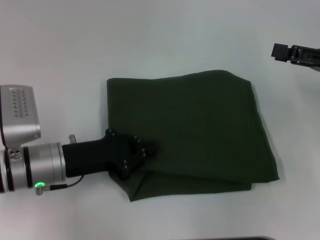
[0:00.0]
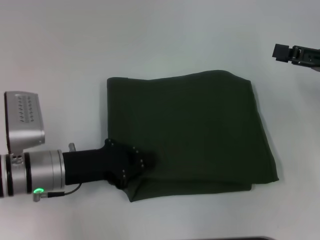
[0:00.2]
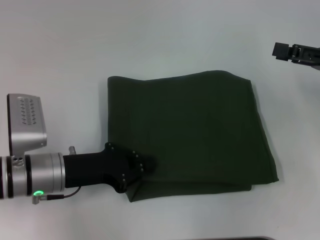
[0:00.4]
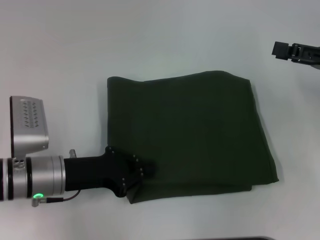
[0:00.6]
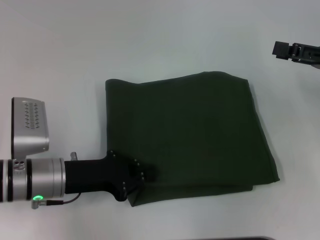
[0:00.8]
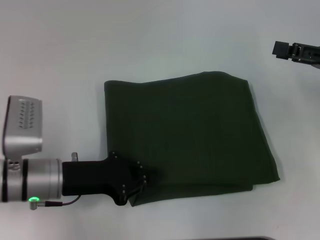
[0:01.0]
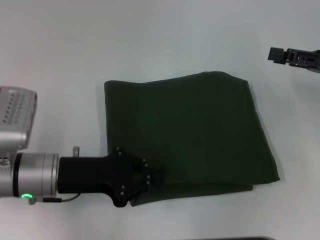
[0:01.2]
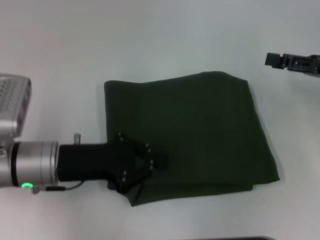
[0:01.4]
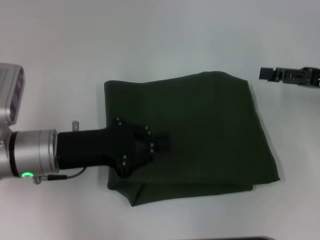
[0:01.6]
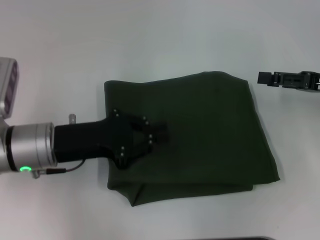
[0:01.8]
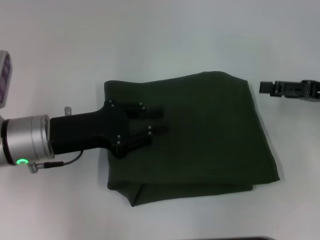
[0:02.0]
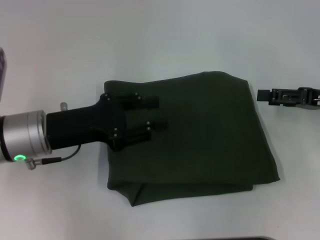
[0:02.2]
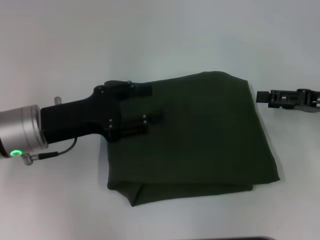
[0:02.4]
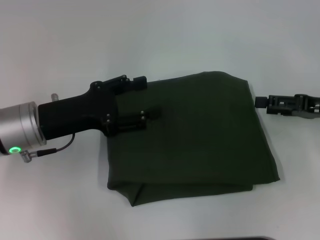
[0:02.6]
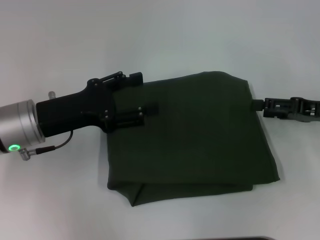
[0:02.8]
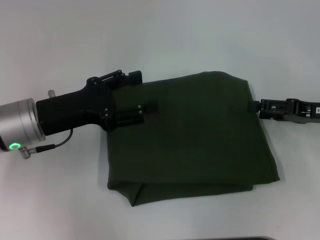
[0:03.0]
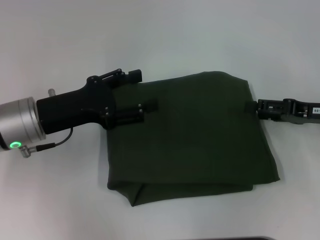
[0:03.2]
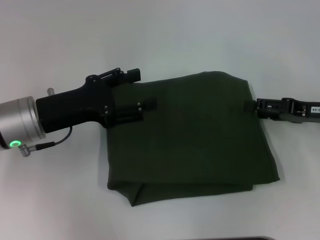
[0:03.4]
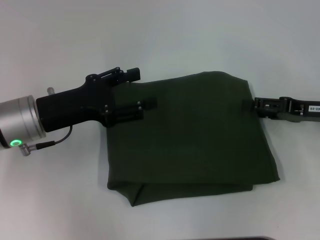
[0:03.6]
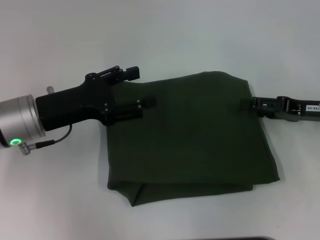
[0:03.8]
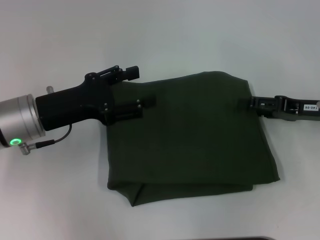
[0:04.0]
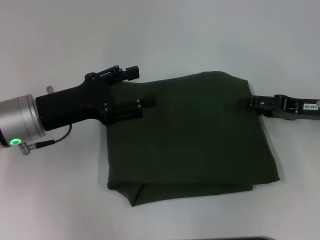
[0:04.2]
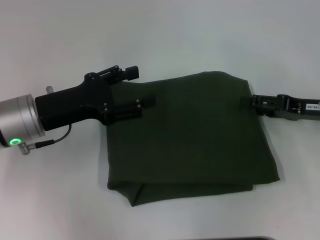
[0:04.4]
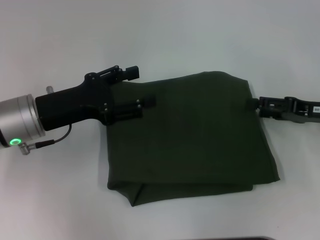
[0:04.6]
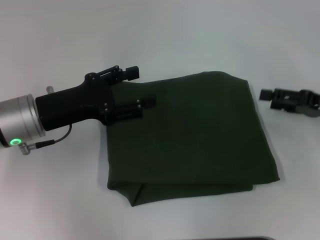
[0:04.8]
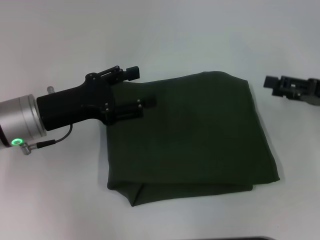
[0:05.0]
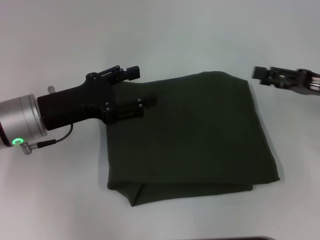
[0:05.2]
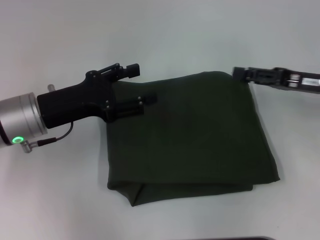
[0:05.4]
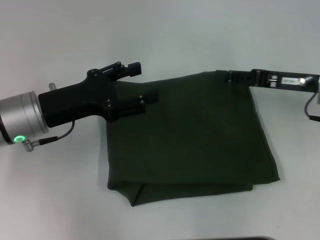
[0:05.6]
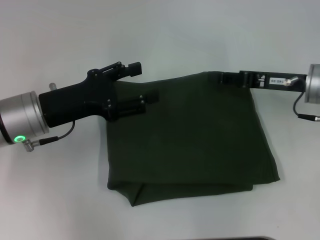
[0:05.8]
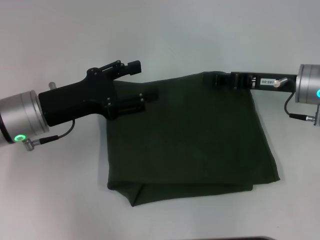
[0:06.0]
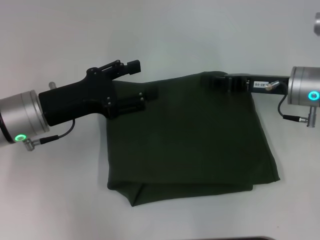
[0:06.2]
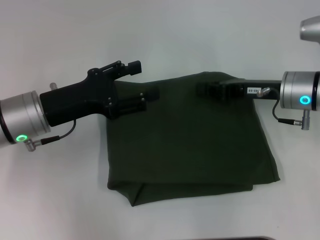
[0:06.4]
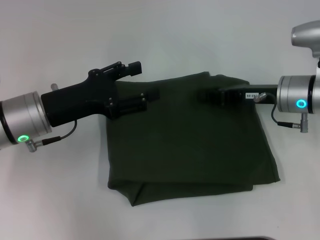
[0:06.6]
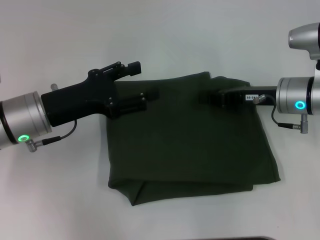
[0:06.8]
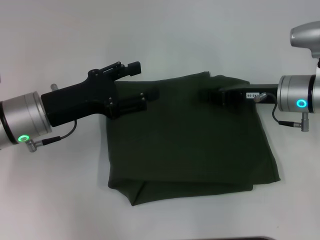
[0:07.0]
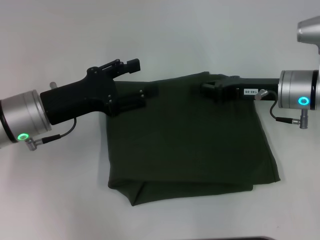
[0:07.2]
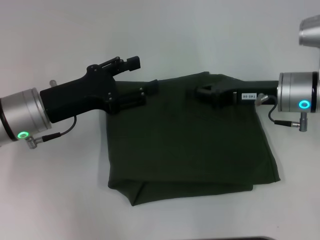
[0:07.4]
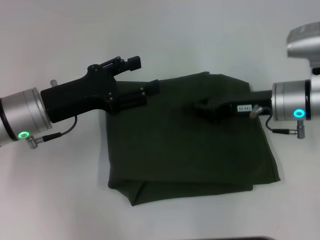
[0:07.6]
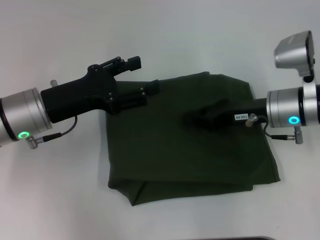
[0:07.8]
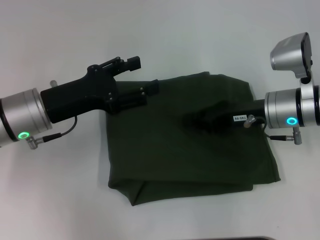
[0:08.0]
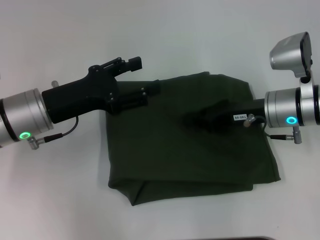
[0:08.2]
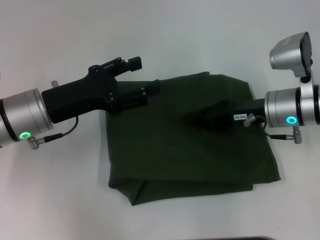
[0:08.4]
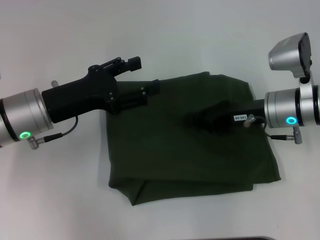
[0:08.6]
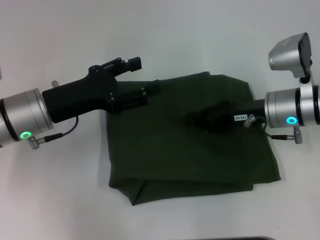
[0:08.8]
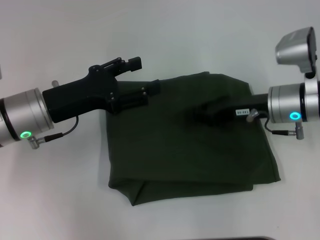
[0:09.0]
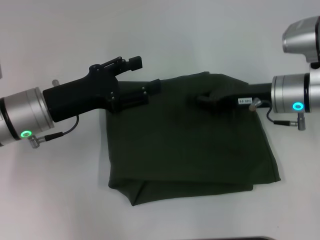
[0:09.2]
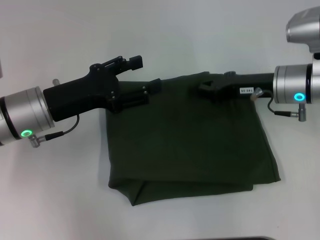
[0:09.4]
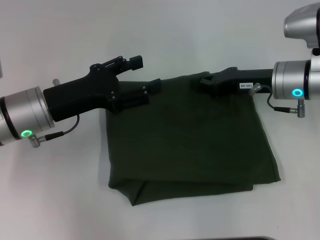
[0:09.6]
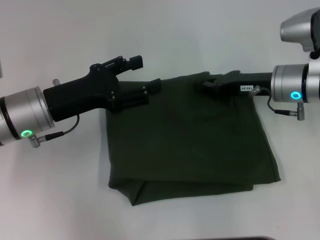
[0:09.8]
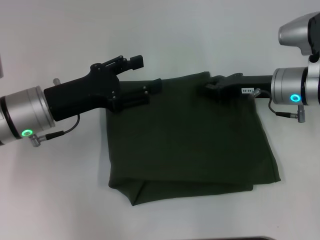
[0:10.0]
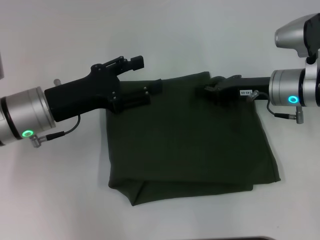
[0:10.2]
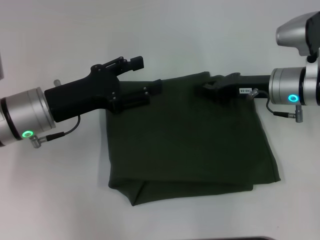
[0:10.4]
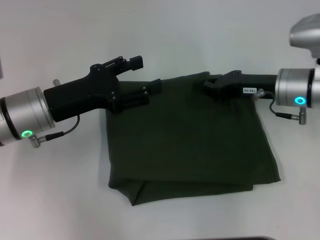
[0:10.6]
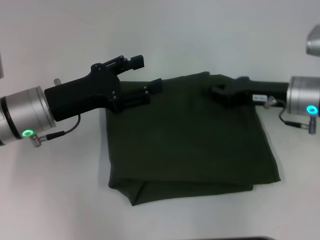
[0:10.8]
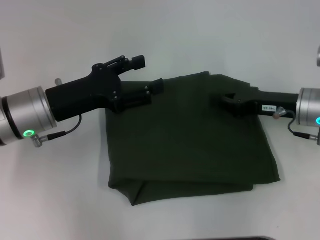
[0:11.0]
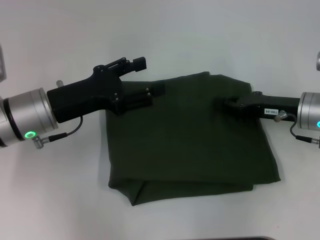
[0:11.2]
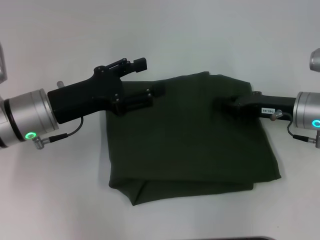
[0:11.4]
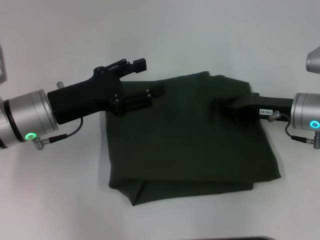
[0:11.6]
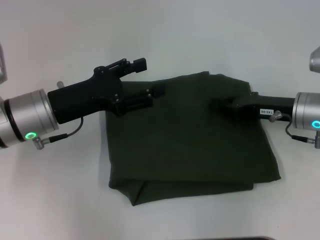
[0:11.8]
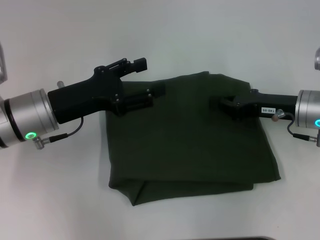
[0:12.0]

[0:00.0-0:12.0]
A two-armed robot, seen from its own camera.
0:00.0 to 0:01.6: The grippers stay close to where they were, moving slightly.
0:01.6 to 0:03.0: The left gripper opens up.
0:03.0 to 0:04.4: The grippers move only a little.
0:04.4 to 0:06.0: The right gripper heads to the left, covering some 5 cm, and closes up.
0:06.0 to 0:07.6: The grippers stay close to where they were, moving slightly.
0:07.6 to 0:10.4: The grippers stay close to where they were, moving slightly.
0:10.4 to 0:12.0: The right gripper shifts by about 5 cm.

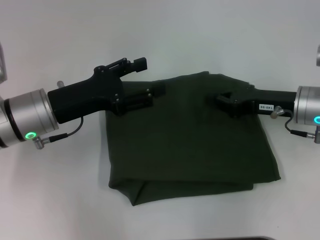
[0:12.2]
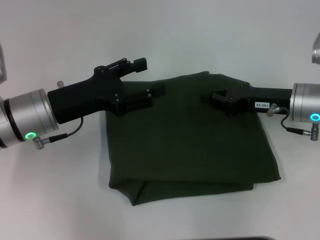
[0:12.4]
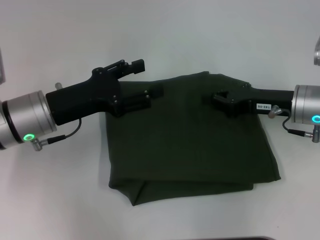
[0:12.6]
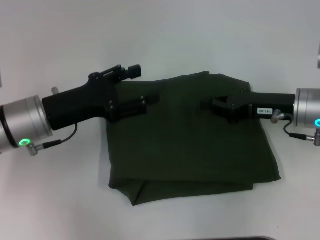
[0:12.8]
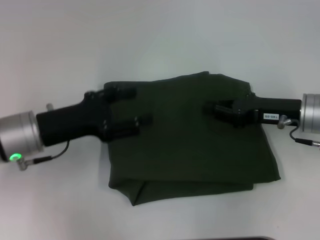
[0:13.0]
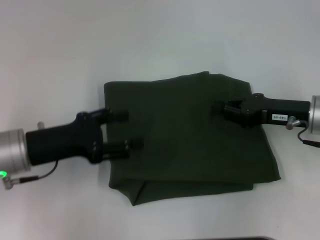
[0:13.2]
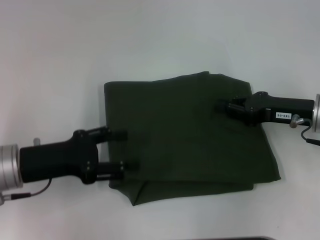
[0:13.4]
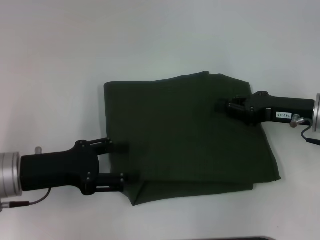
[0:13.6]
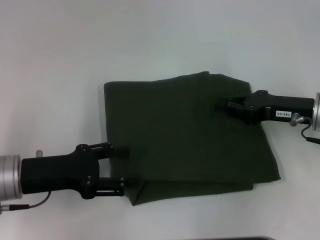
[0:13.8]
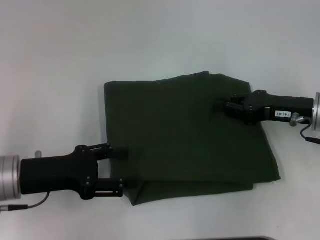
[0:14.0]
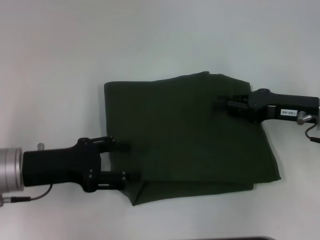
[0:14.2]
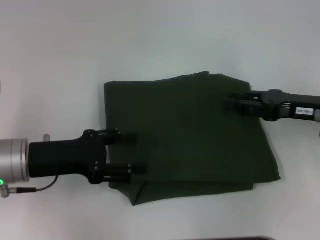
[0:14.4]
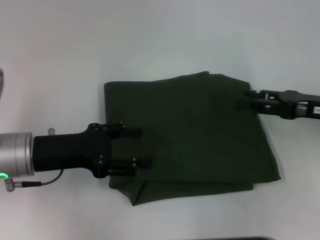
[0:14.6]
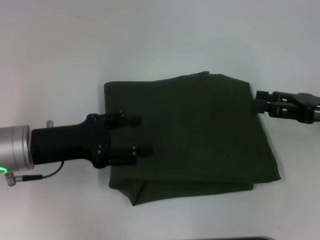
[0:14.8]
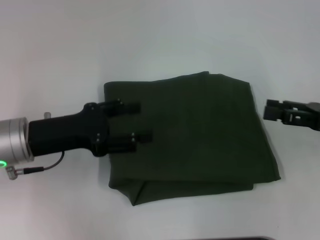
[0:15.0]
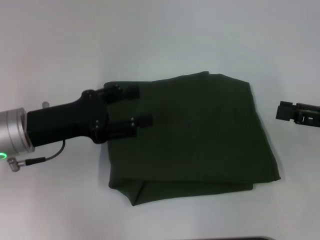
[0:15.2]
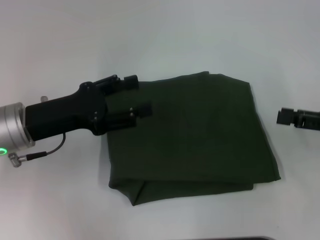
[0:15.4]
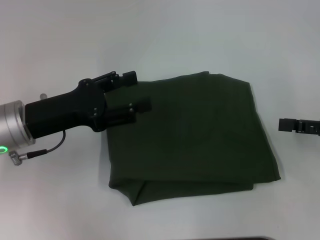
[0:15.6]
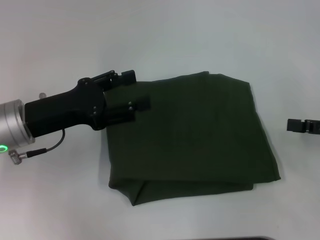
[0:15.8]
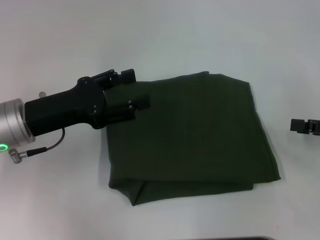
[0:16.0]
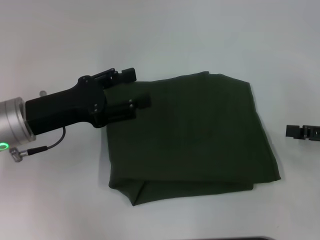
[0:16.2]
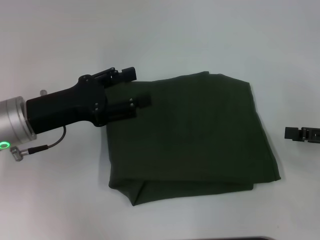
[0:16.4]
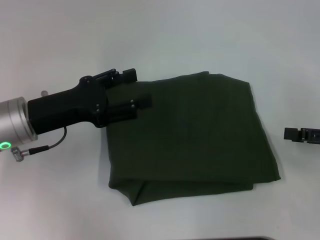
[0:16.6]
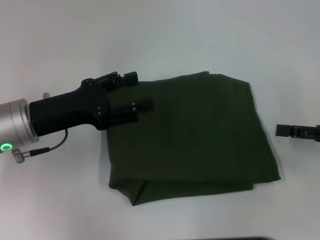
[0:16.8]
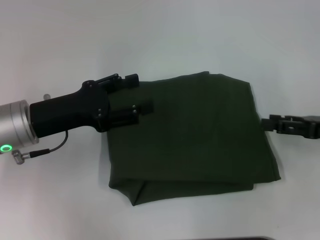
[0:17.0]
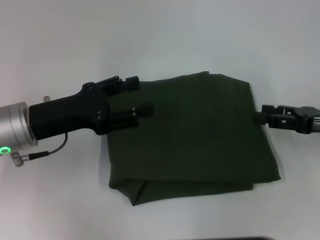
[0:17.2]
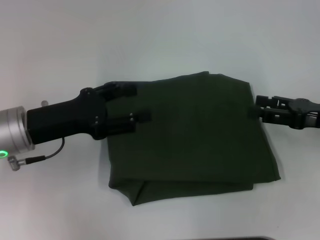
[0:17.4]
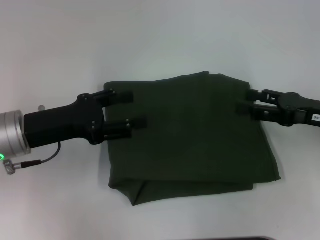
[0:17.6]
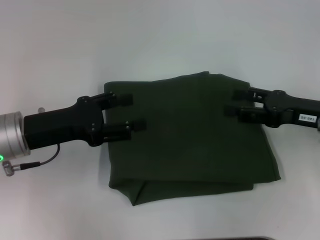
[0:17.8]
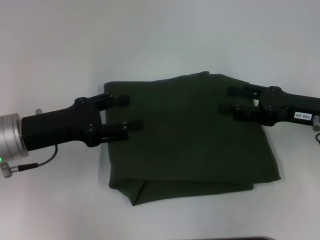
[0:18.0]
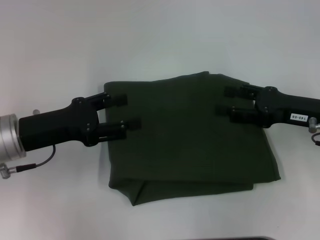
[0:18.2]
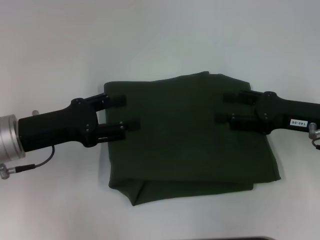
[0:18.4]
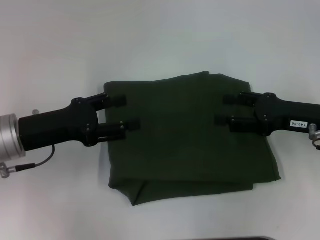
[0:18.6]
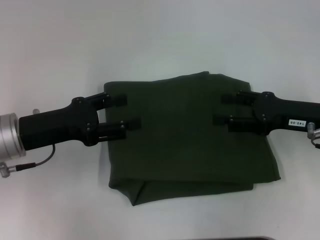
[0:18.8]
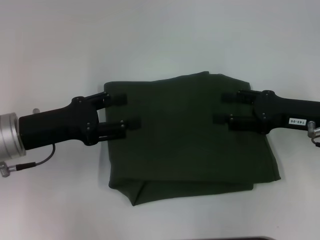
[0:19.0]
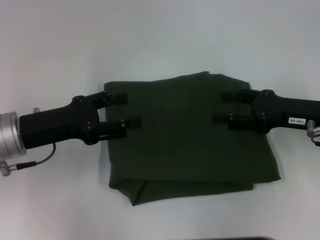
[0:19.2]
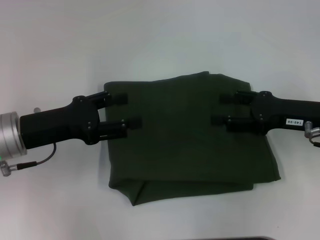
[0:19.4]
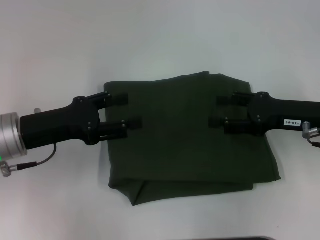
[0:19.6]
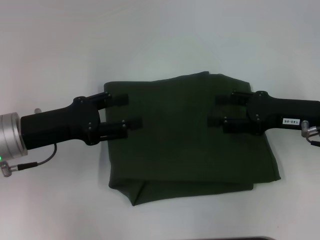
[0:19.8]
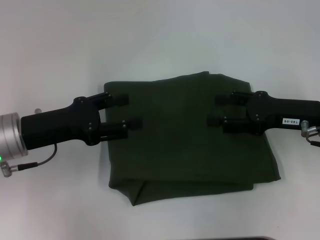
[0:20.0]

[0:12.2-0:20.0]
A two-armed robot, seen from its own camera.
0:12.2 to 0:13.8: The left gripper heads backward, covering roughly 5 cm.
0:13.8 to 0:15.4: The right gripper goes approximately 10 cm to the right and backward, and opens; the left gripper shifts by approximately 5 cm.
0:15.4 to 0:16.8: The grippers stay close to where they were, moving slightly.
0:16.8 to 0:18.4: The right gripper shifts approximately 10 cm to the left.
0:18.4 to 0:20.0: Both grippers stay about where they are.

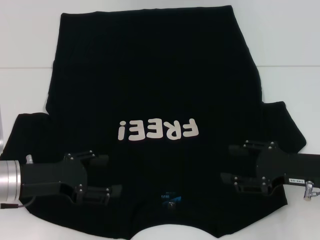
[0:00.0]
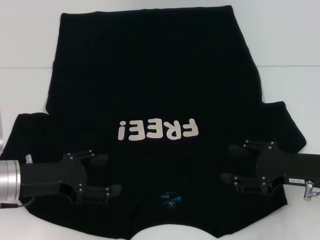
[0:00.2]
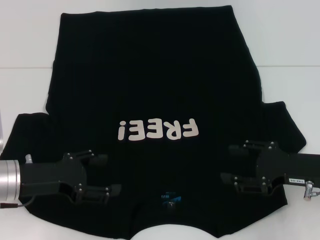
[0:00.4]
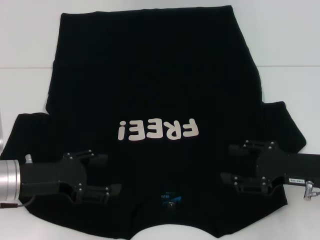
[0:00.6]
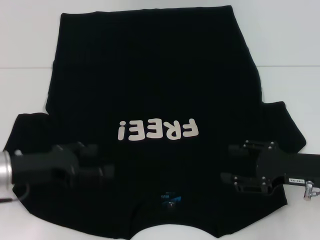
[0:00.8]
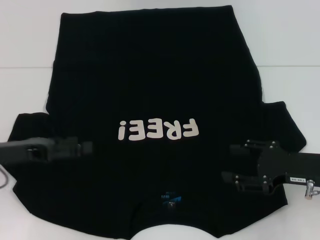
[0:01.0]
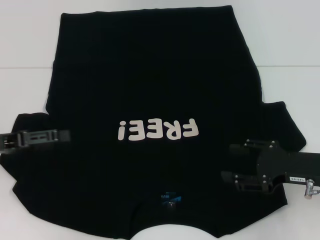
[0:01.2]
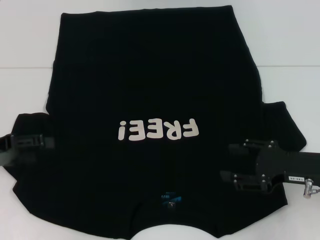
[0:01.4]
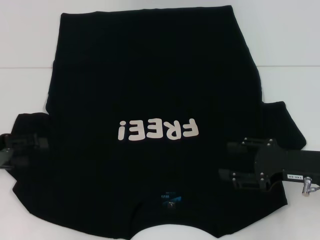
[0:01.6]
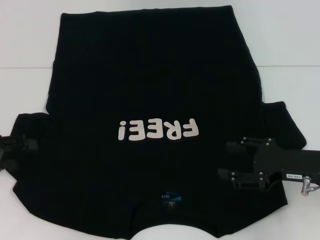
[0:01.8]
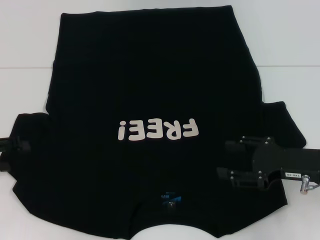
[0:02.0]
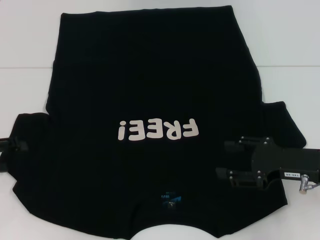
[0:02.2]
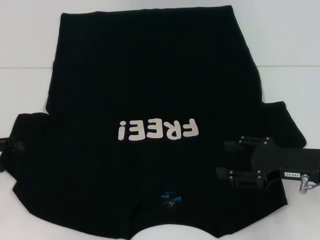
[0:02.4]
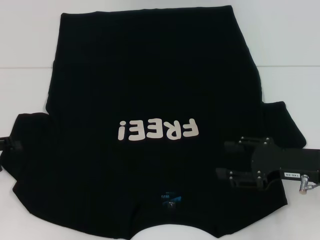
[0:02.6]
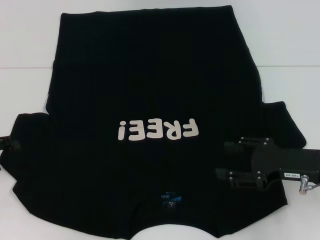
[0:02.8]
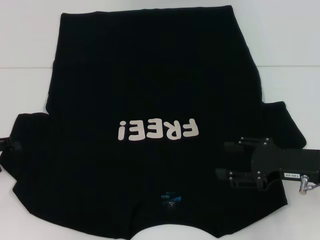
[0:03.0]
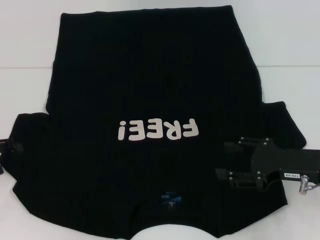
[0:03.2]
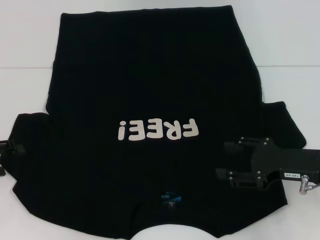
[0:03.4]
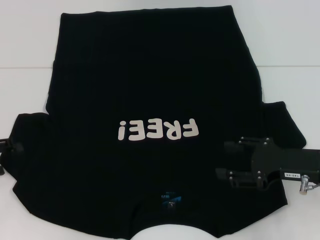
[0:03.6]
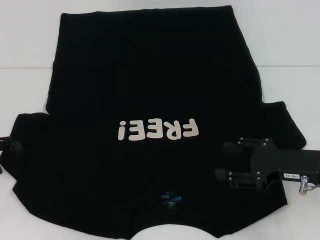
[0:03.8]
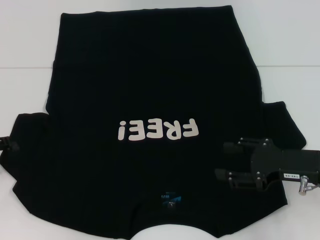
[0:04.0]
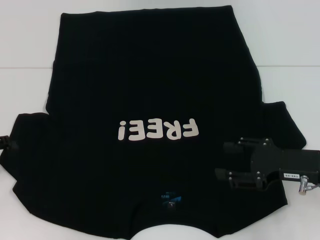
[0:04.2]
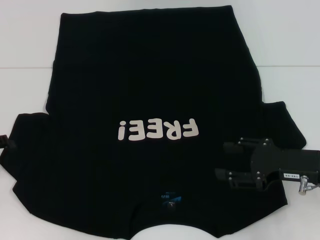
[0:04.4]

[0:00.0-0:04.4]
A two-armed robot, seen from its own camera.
0:00.0 to 0:01.4: The left gripper shifts roughly 10 cm to the left.
0:03.0 to 0:04.4: The two grippers keep their place.
